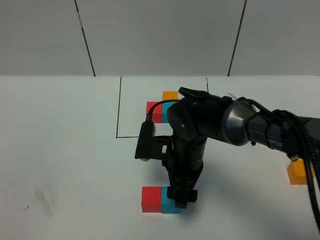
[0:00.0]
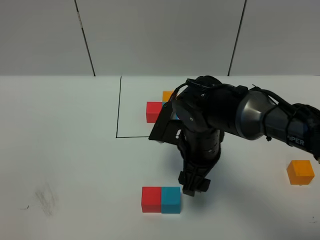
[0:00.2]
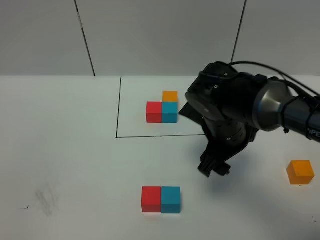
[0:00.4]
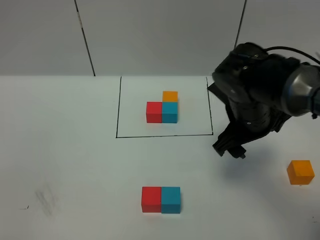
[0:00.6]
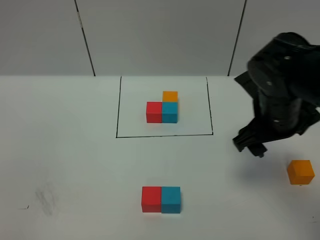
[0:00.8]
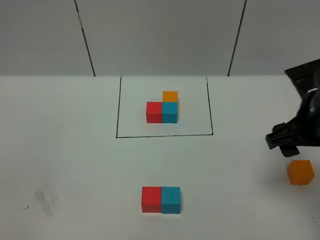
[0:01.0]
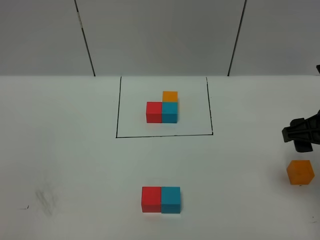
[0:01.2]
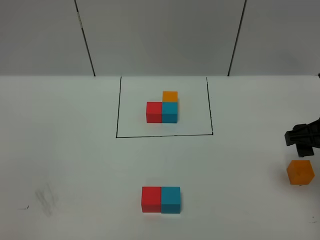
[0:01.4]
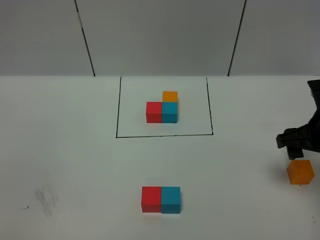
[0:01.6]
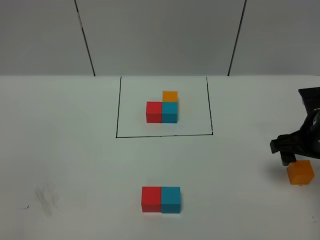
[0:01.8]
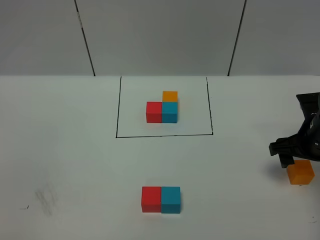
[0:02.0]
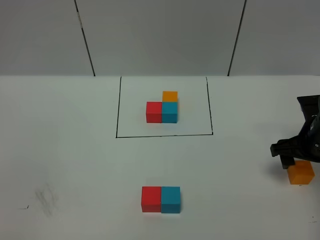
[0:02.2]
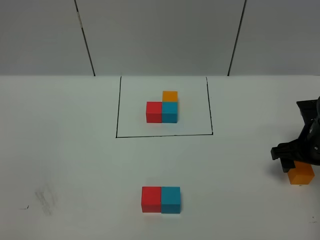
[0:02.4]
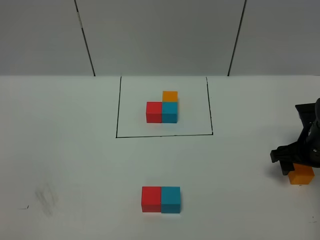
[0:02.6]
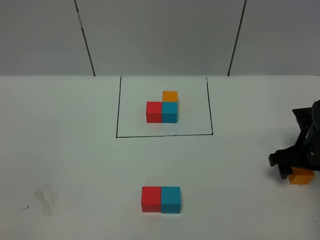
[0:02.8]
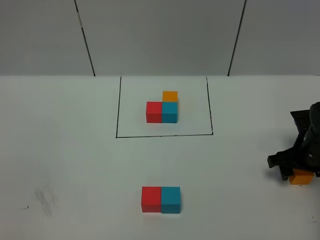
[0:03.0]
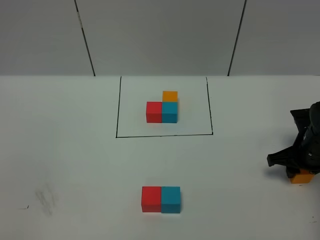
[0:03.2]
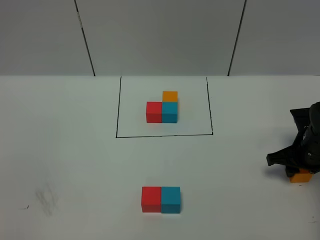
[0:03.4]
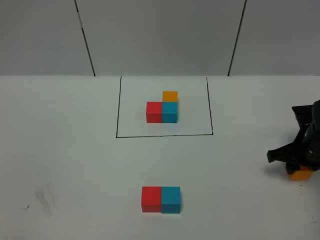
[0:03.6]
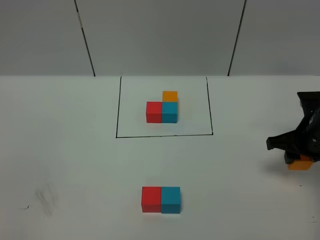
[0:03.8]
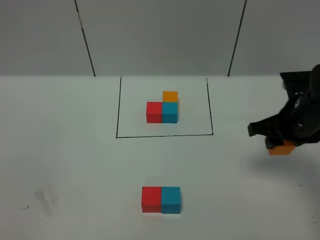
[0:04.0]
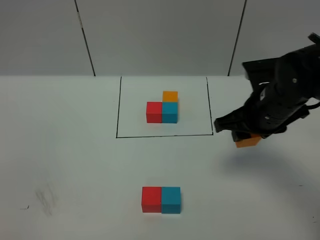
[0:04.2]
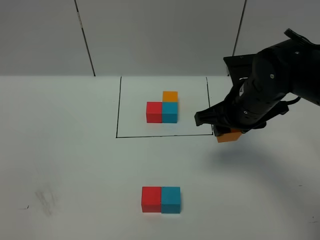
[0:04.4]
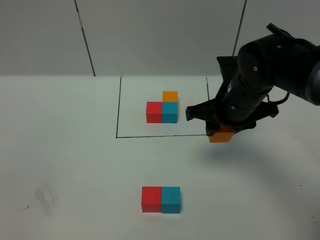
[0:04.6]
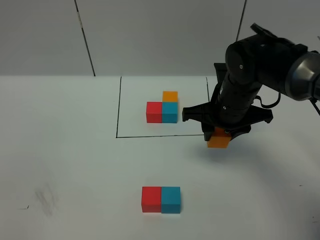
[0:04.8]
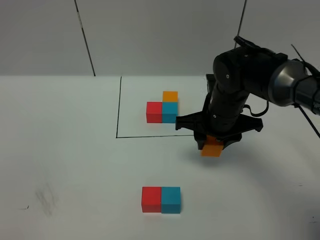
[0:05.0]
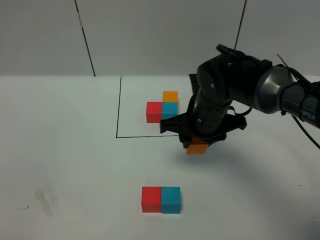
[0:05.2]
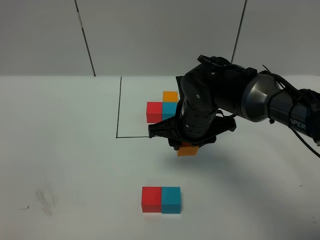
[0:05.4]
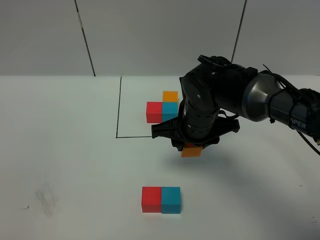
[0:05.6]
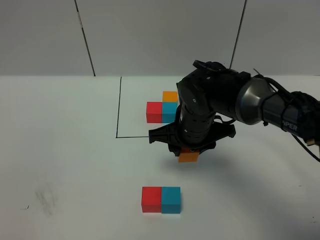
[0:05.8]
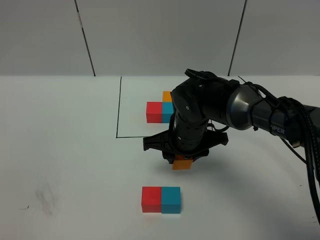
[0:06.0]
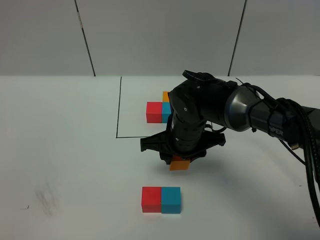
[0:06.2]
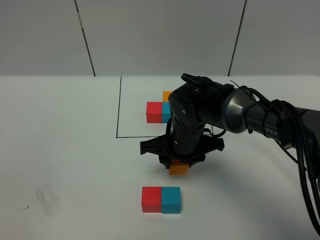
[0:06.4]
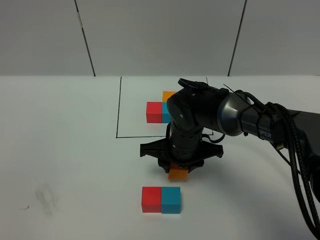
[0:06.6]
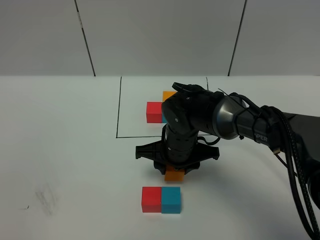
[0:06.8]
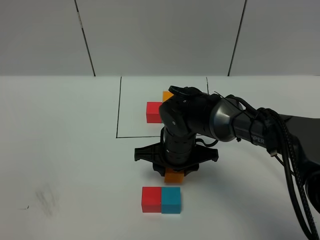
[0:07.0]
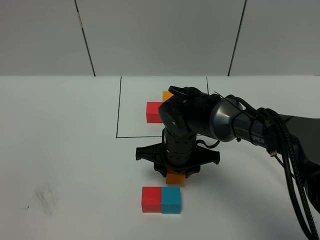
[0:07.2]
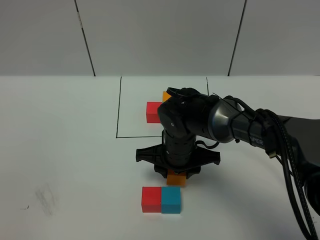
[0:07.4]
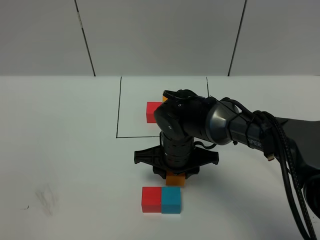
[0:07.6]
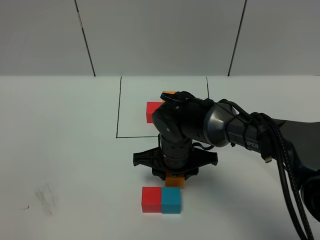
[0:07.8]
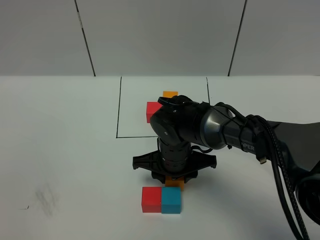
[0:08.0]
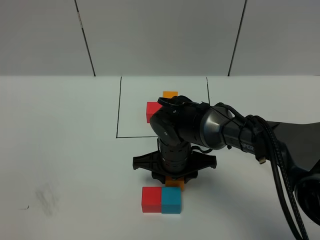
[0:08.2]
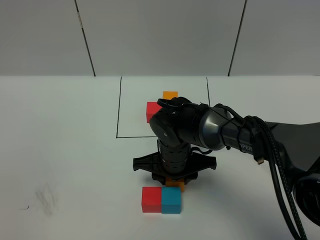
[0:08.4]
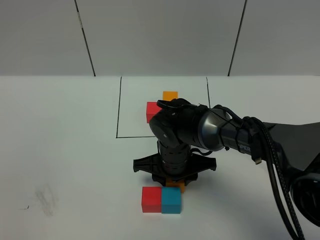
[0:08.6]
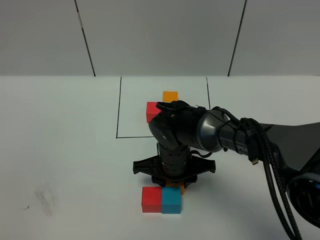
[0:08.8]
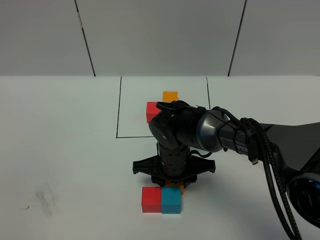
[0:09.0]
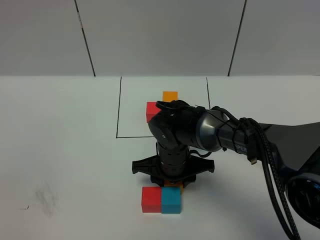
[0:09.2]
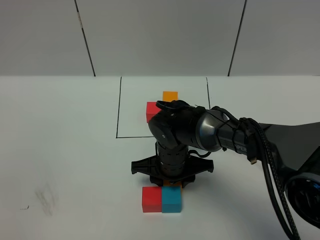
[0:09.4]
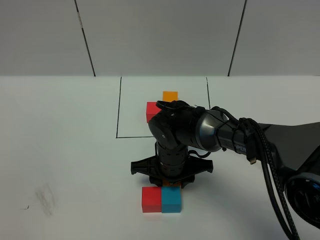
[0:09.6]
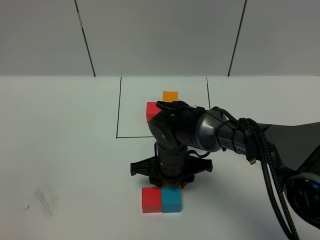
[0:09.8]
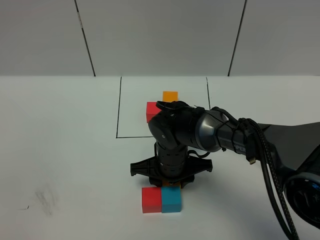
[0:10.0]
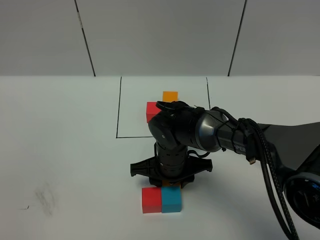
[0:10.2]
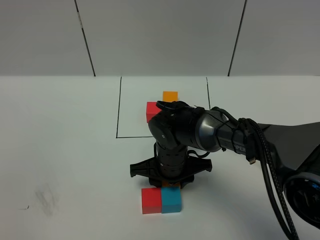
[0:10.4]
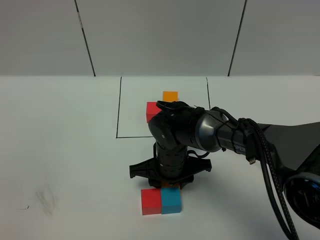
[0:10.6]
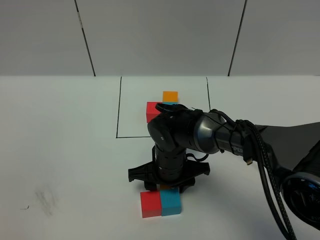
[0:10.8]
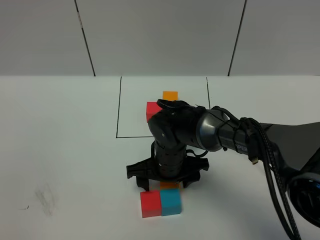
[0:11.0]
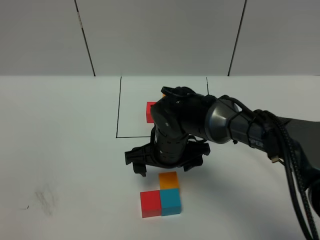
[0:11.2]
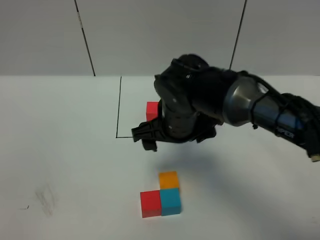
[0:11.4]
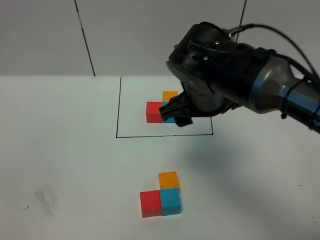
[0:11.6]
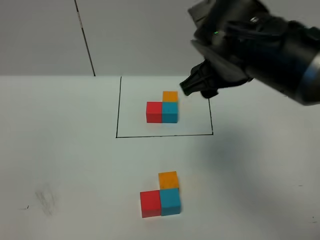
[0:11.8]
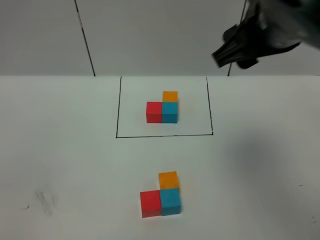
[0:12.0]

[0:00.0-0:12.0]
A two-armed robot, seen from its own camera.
Task of the whole recording: According to the building block template in front, assemble the scattered blocks together.
Step, 0:00.0 to 0:11.0: Put the orange cube on the behind of the blue cube.
0:00.0 to 0:01.6: The right gripper is displaced to the right by approximately 25 cm.
0:01.6 to 0:03.0: The right gripper shifts approximately 10 cm downward.
0:03.0 to 0:04.4: The right gripper goes about 20 cm to the left and upward.
0:04.4 to 0:06.0: The right gripper shifts some 10 cm to the left and downward.
0:06.0 to 0:07.6: There are only small adjustments of the grippers.
0:07.6 to 0:09.0: The grippers make only small movements.
0:09.0 to 0:10.4: Both grippers stay about where they are.
0:10.4 to 0:12.0: The right gripper is displaced upward by approximately 30 cm.

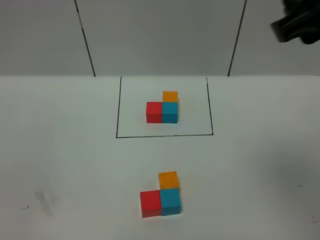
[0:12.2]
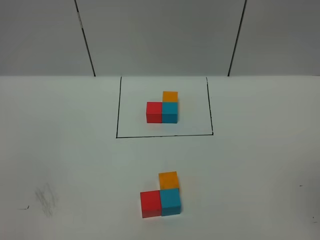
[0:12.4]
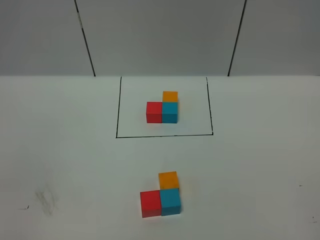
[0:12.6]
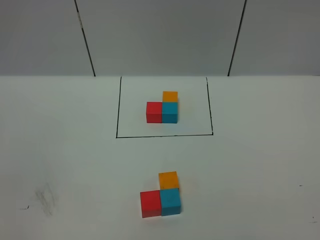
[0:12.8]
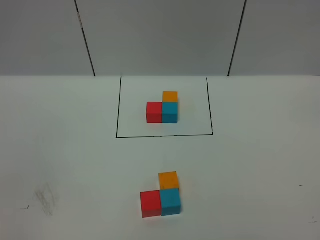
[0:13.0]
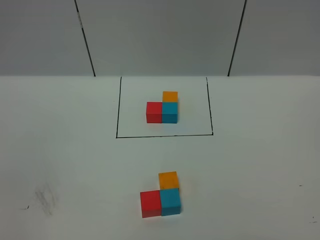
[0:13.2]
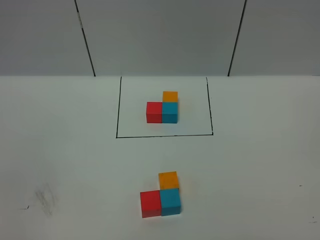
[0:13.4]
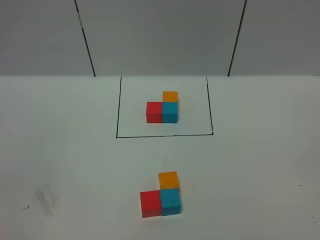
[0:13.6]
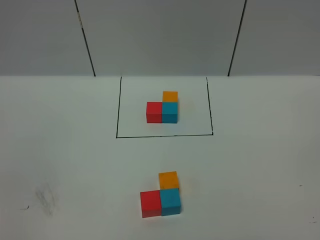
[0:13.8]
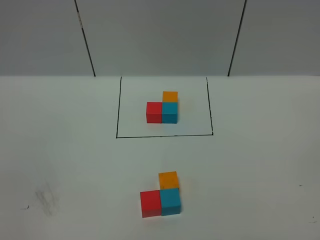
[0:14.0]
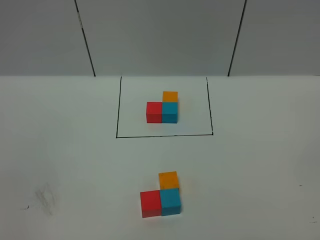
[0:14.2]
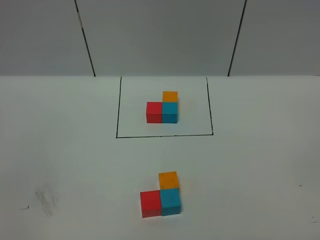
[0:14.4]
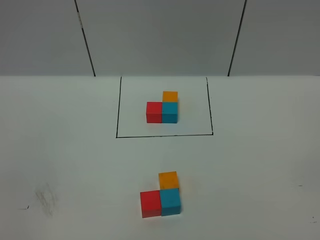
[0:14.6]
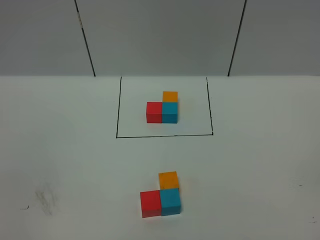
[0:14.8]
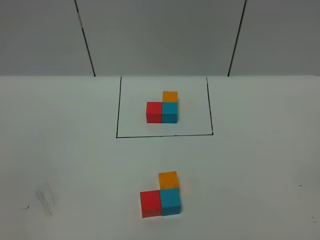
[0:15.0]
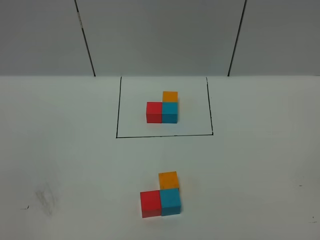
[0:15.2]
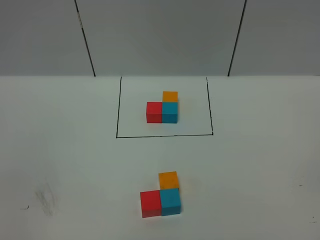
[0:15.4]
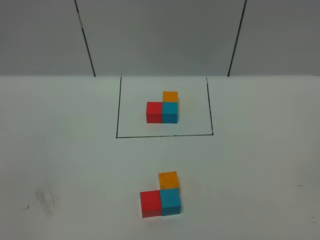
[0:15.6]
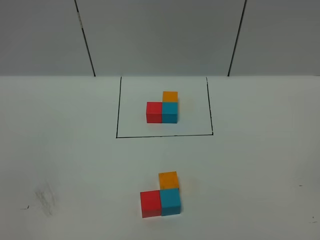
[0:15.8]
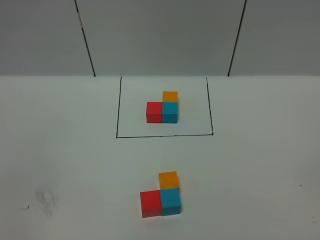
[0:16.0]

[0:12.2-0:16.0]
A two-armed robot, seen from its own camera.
Task of the whole recording: According to the building block template in front, assemble the scattered blocks together.
0:12.2 to 0:13.4: The right gripper is displaced backward, to the right and downward by approximately 30 cm, and opens, then closes once more.

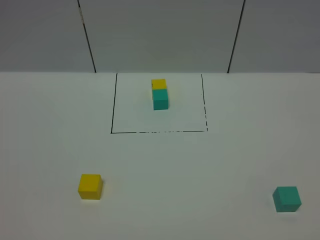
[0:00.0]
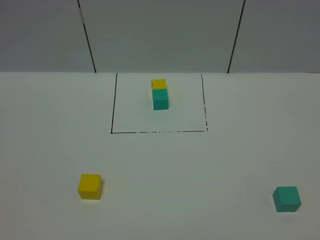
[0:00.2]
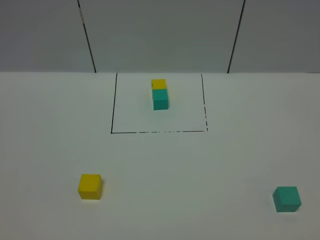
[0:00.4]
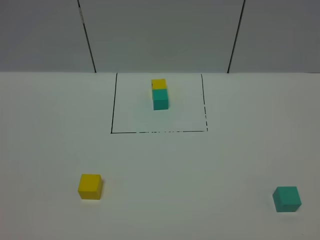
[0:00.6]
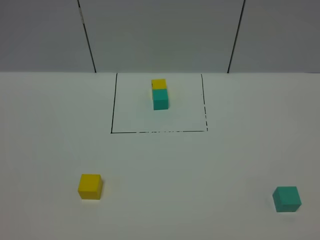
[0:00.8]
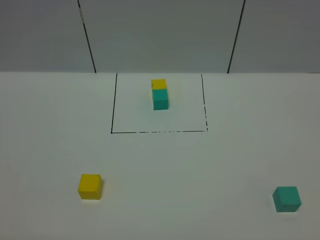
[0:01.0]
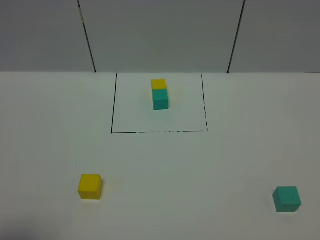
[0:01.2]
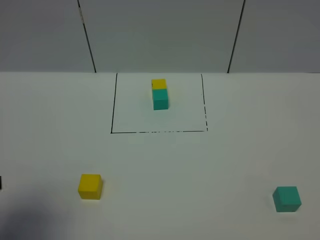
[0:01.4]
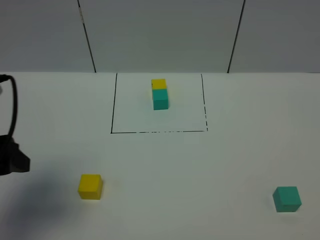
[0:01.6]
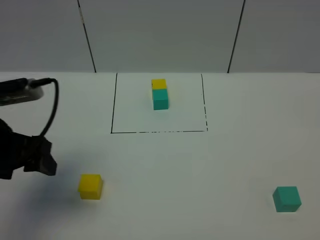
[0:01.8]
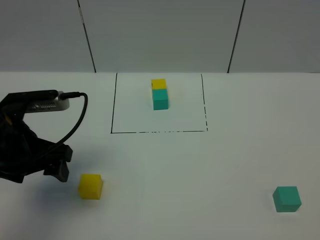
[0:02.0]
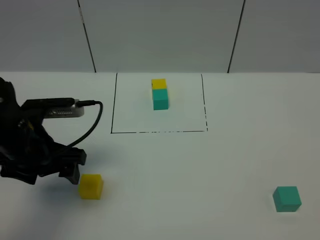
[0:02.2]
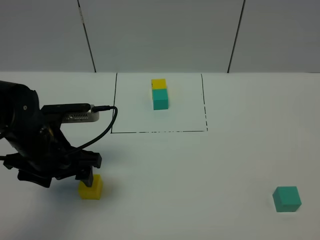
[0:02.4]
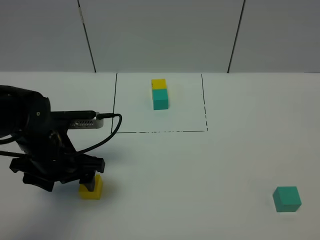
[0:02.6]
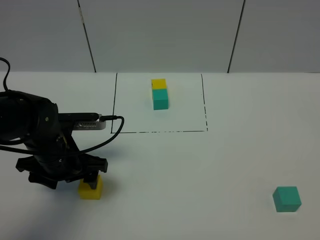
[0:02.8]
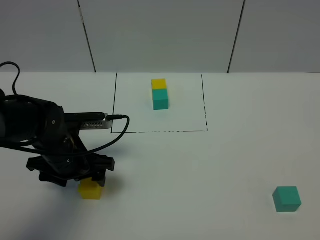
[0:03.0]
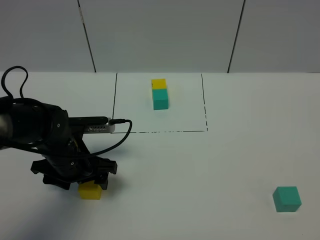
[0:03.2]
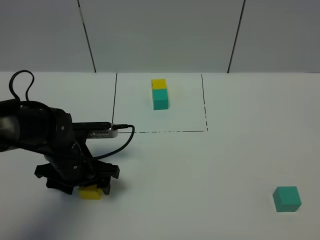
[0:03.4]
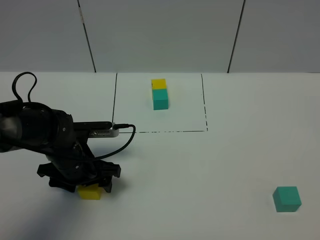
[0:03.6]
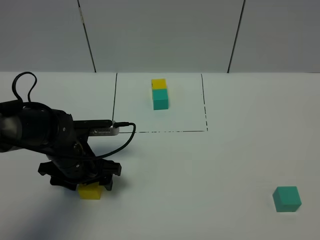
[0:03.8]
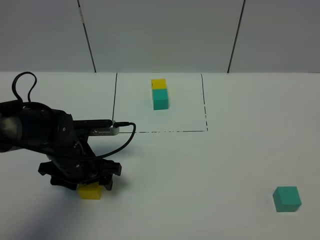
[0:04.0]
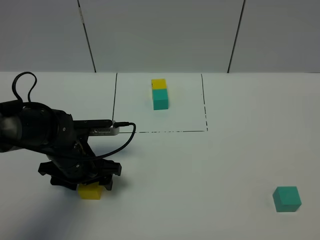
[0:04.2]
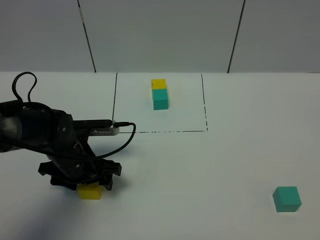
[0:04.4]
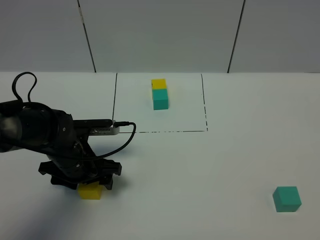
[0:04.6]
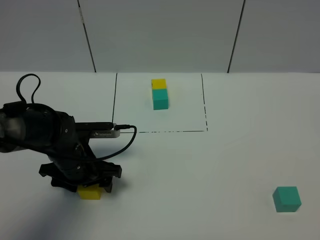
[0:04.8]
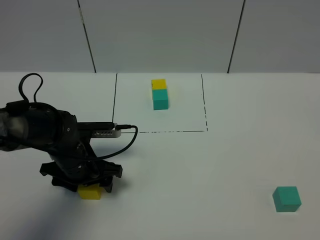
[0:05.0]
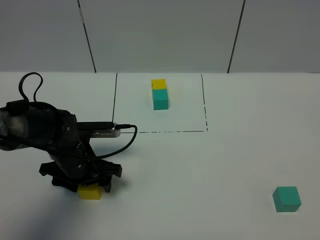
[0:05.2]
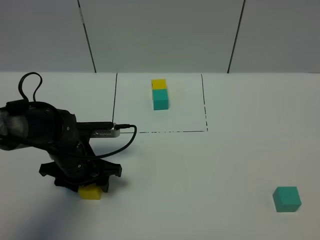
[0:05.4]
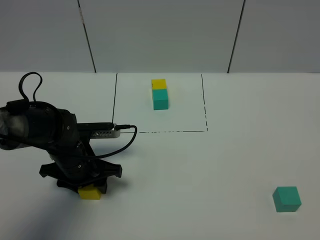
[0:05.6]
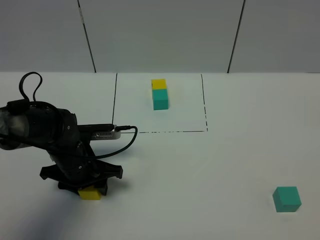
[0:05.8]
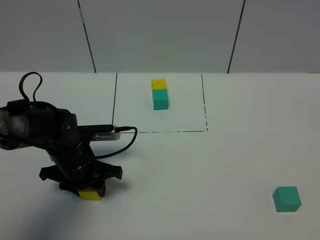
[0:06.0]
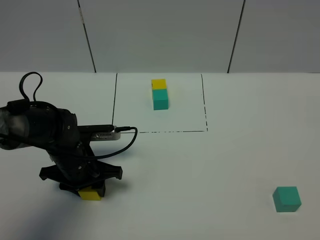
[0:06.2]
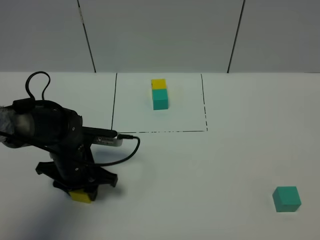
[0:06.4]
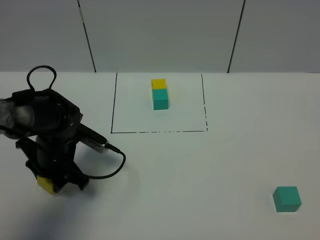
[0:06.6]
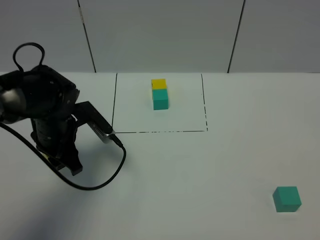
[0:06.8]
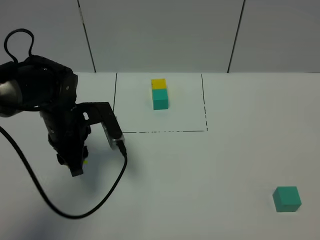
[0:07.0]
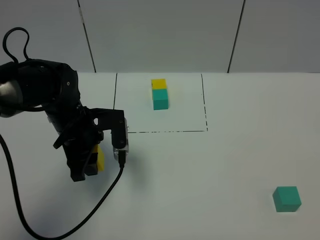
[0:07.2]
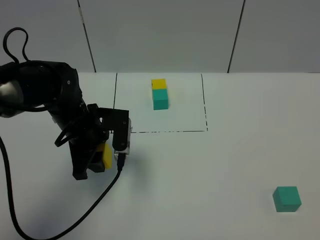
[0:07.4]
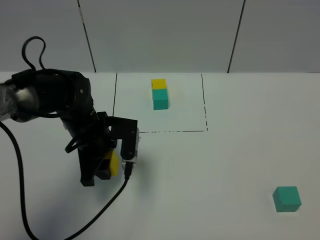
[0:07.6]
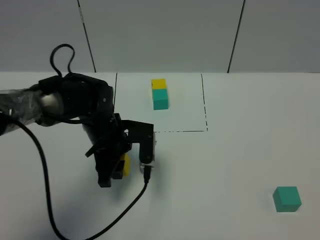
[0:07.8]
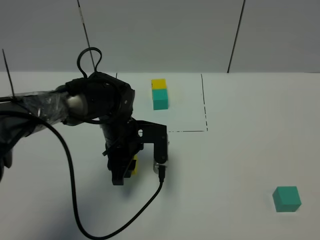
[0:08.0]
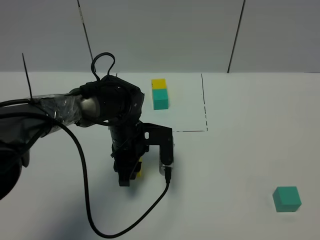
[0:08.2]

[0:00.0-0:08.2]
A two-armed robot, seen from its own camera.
Task of the whole recording: According to the building block template in front, assemble the scattered blocks together.
0:00.0 to 0:01.6: The left gripper moves forward, roughly 20 cm.
0:01.6 to 0:03.2: The left gripper is displaced downward, forward and to the right by some 20 cm.
0:03.2 to 0:05.0: The grippers make only small movements.
0:05.0 to 0:06.6: The left gripper closes up.
0:06.6 to 0:08.2: The left gripper travels to the right by about 15 cm.
